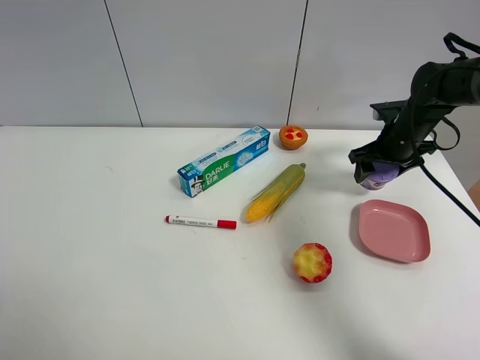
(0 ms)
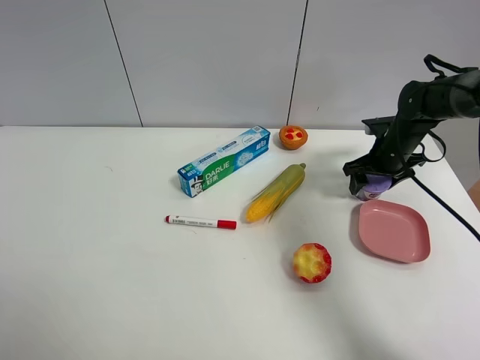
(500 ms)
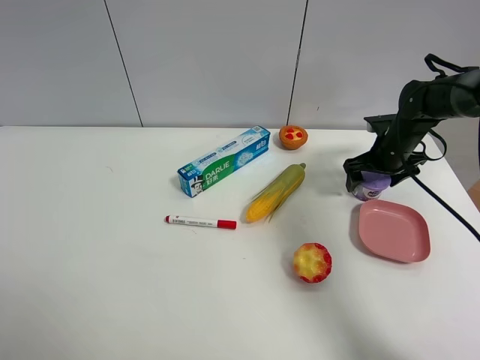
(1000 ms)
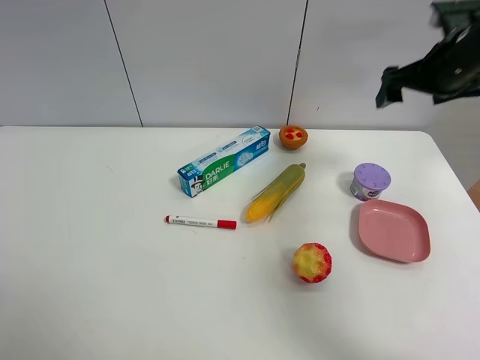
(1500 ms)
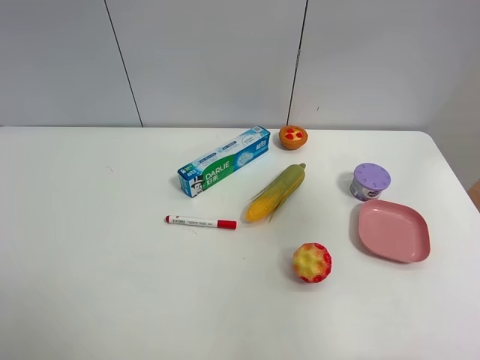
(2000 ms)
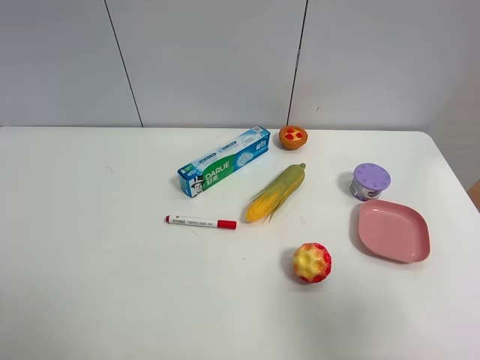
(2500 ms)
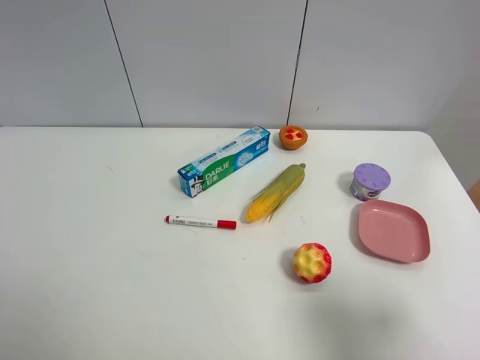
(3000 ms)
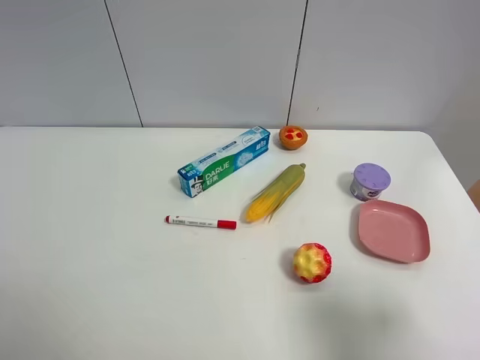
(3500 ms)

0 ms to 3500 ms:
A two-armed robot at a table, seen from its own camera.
Task of the whole recording: the gripper move the object.
0 ms to 2000 ms: The right gripper moves backward and upward, roughly 40 cm, and opens.
2000 ms to 3500 ms: The right gripper moves downward and backward, approximately 20 cm.

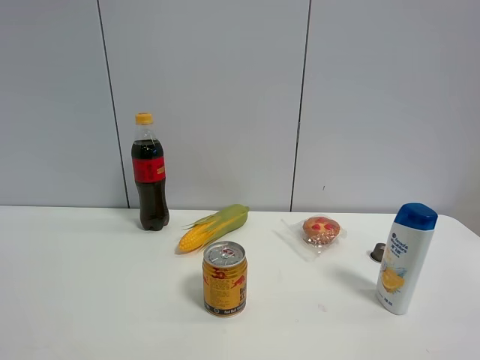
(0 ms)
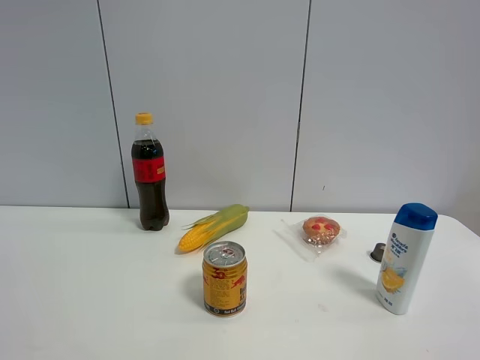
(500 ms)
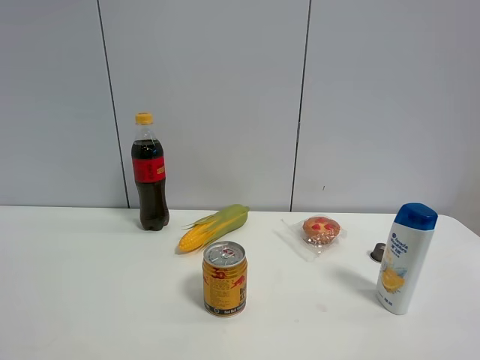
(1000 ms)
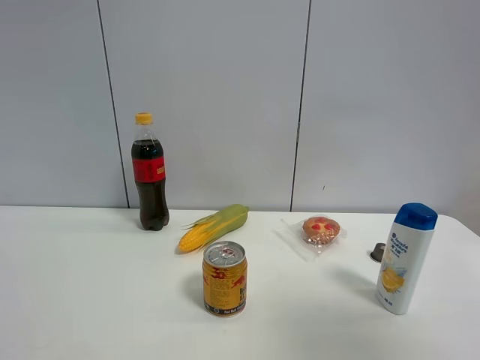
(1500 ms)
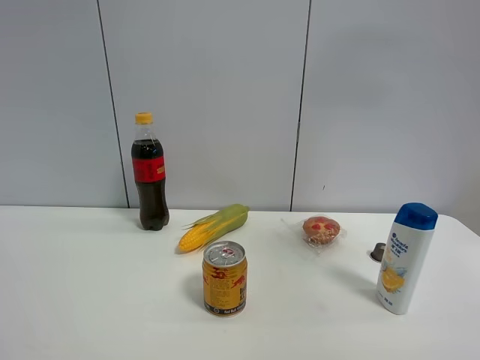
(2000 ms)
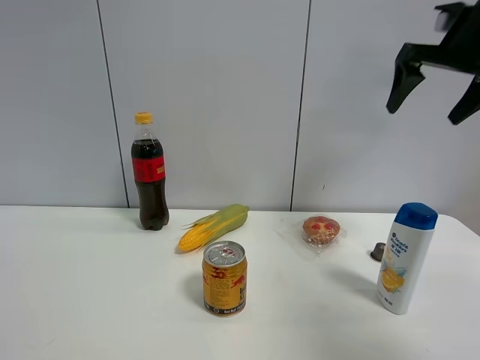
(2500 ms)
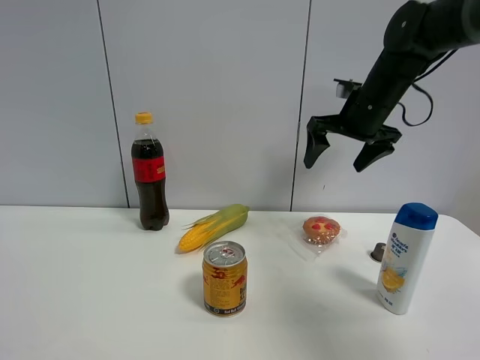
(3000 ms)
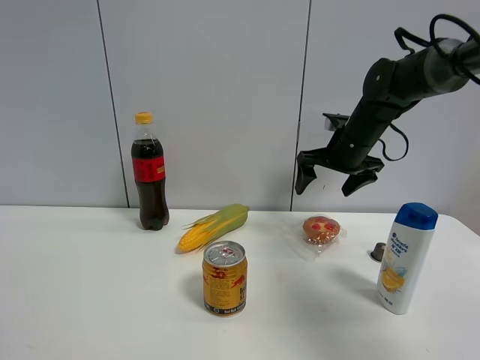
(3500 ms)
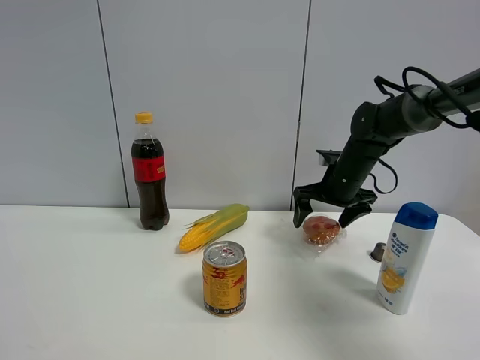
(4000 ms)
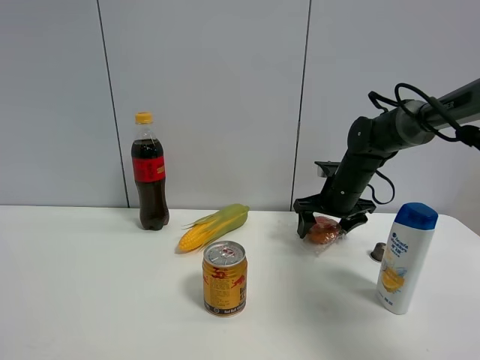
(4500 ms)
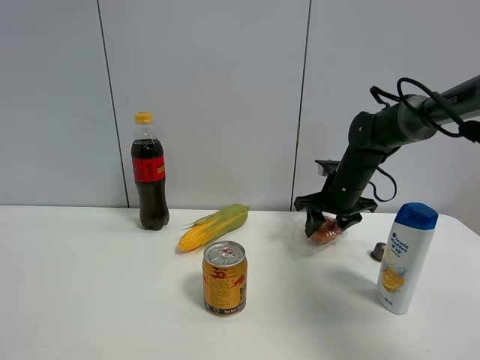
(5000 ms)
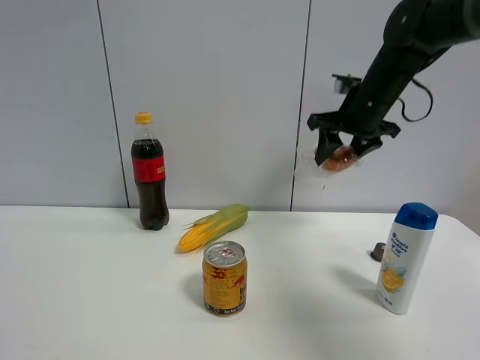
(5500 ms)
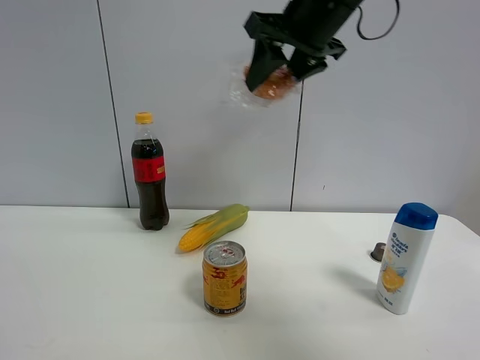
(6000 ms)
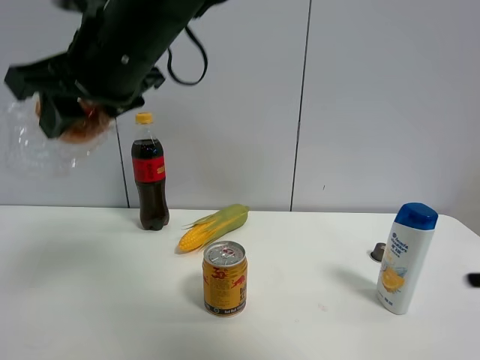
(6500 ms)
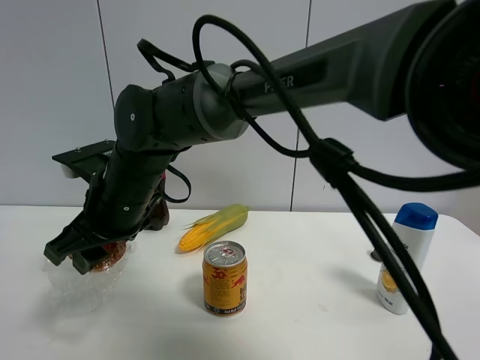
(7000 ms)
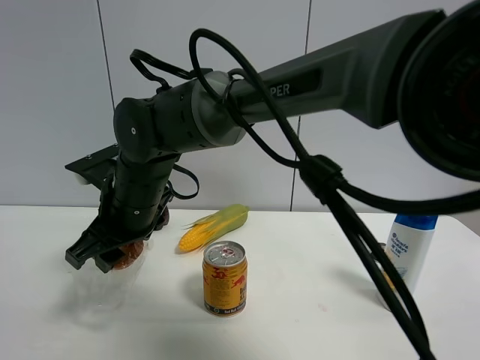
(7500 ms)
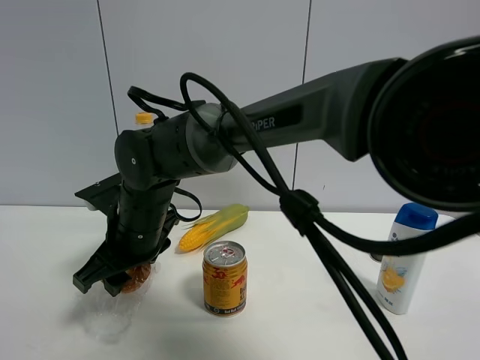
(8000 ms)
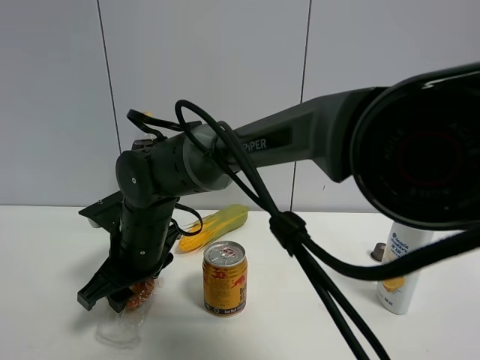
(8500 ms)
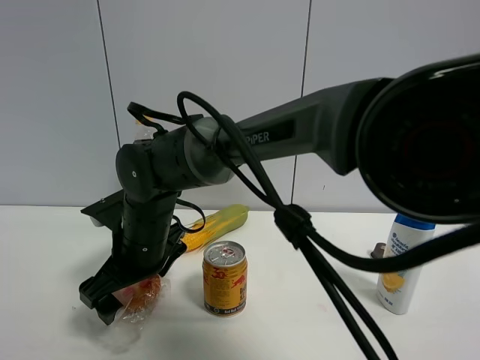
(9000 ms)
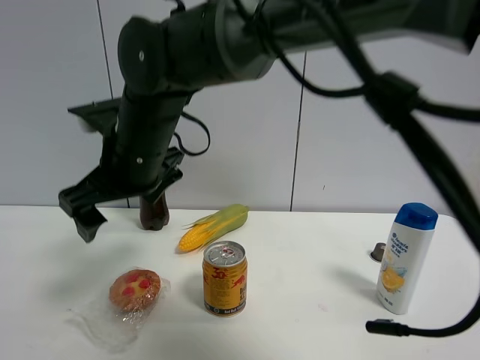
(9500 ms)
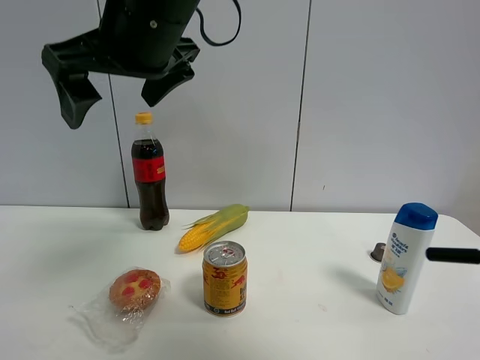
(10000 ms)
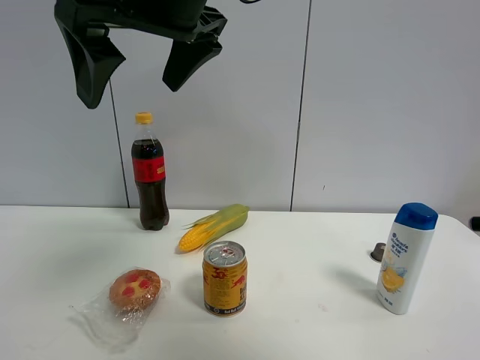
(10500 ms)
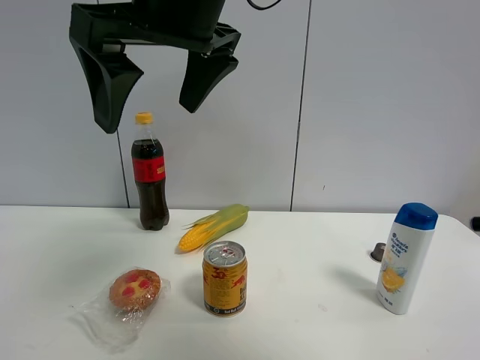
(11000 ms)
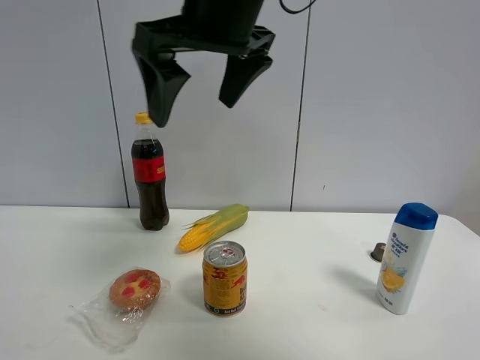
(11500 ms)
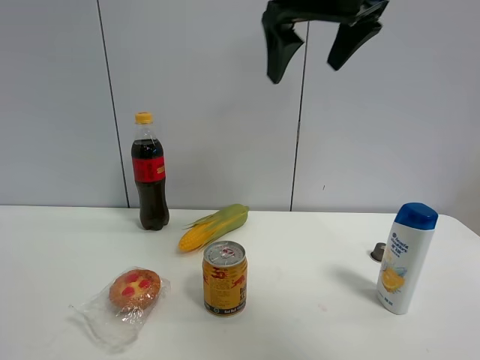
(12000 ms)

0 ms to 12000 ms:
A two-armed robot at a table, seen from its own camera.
Task of the whole recording: the gripper move the object.
Step, 0 ms to 4500 ms: Grasp the egg tart with the right gripper.
Step, 5000 ms to 9000 ms: Place the egg tart on the table with the right gripper.
0 ms to 2000 ms: The right gripper shifts approximately 35 cm forward and upward.
2000 ms to 4000 ms: The right gripper is displaced downward and forward by roughly 40 cm.
4000 ms to 6000 ms: The right gripper shifts about 30 cm upward, backward and to the left, and closes its fingers.
6000 ms to 8000 ms: The right gripper goes roughly 35 cm downward and to the left.
8000 ms to 10000 ms: The right gripper shifts about 25 cm upward, and opens up.
10000 ms to 12000 ms: The right gripper heads to the right, covering about 20 cm.

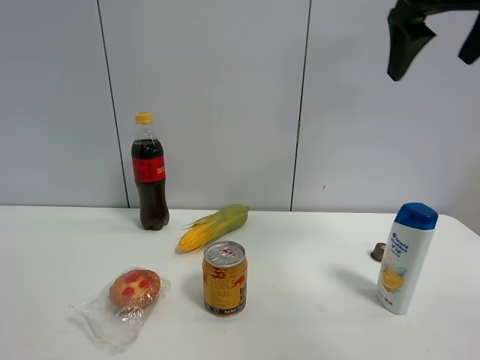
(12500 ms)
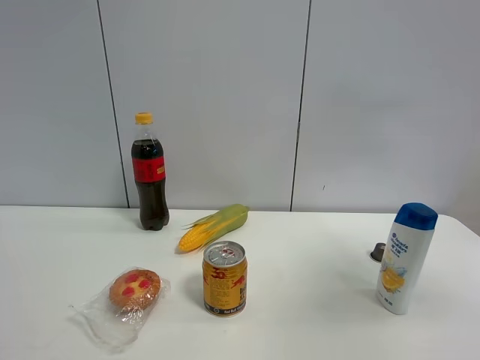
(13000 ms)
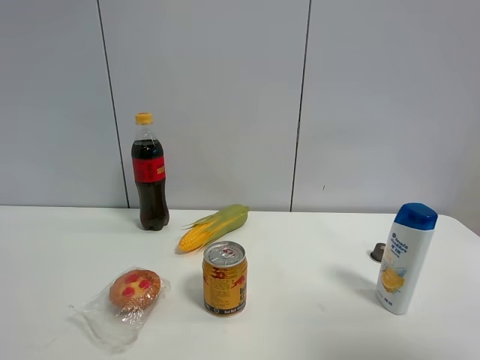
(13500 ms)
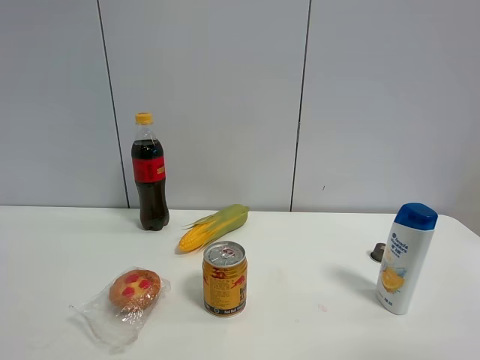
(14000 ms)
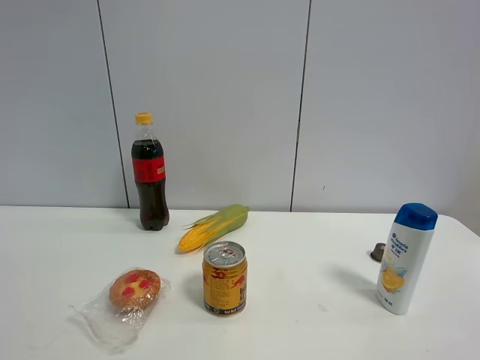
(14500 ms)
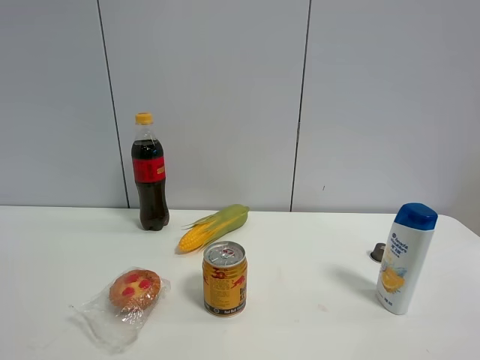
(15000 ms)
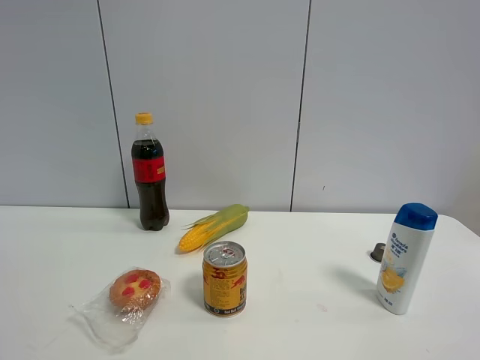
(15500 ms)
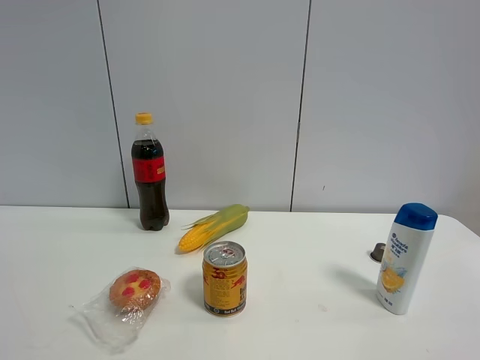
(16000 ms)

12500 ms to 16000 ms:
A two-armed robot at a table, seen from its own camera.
Task of the whole recording: the gripper move the object.
12500 ms to 14500 ms: The right gripper shifts about 35 cm backward and downward.
14500 ms to 16000 ms: The two grippers keep their place.

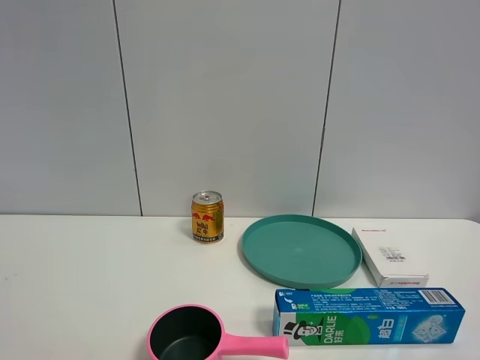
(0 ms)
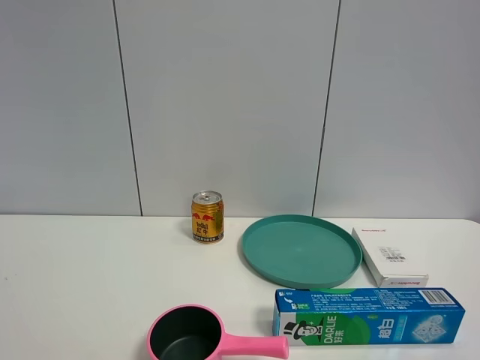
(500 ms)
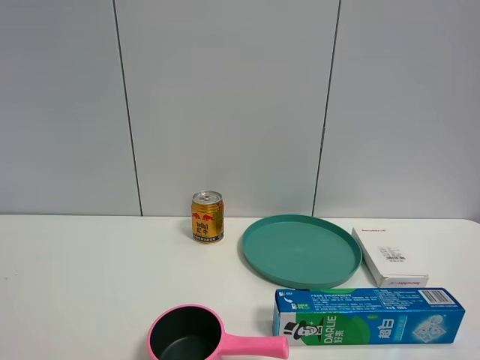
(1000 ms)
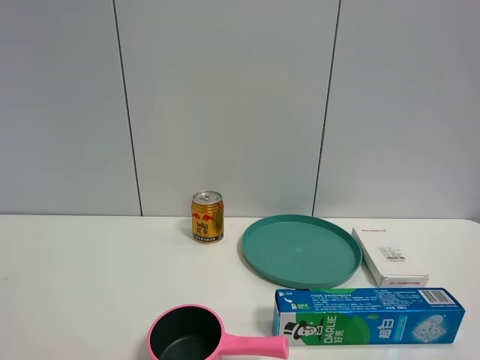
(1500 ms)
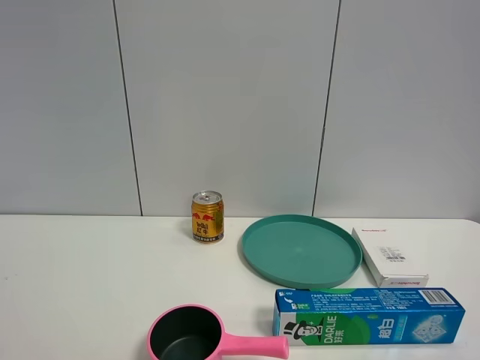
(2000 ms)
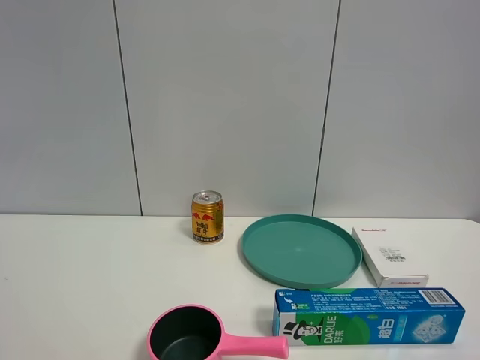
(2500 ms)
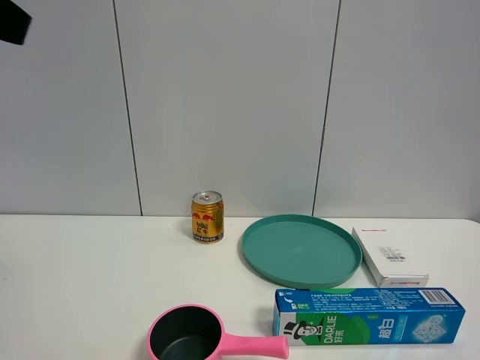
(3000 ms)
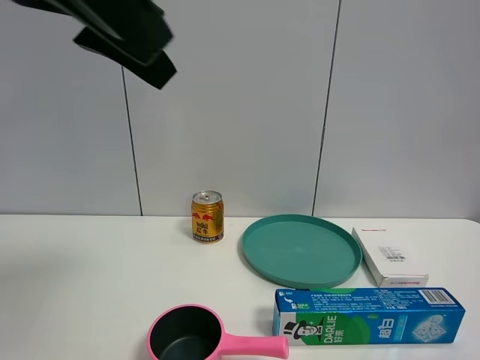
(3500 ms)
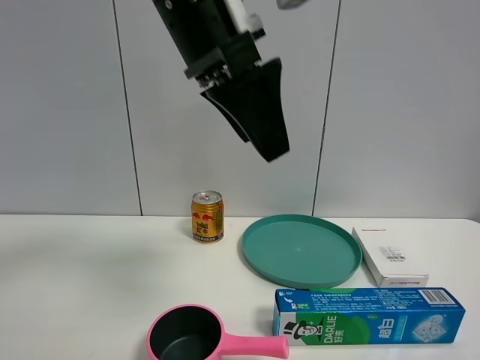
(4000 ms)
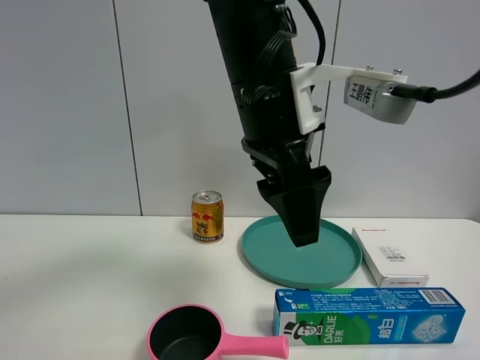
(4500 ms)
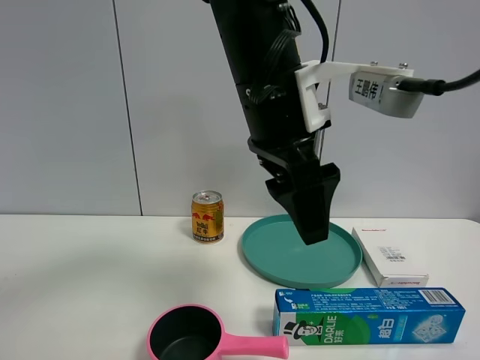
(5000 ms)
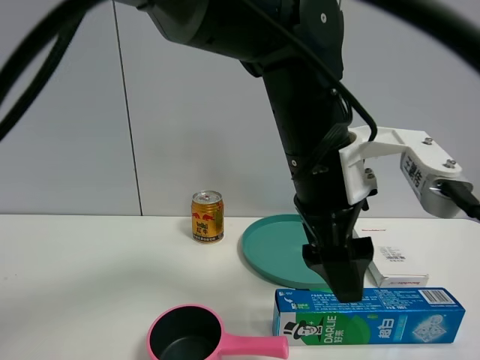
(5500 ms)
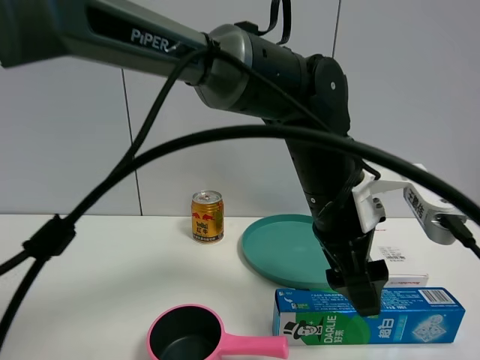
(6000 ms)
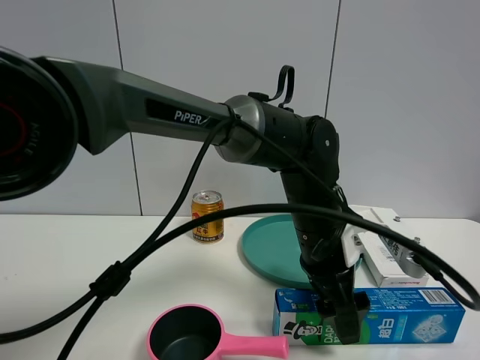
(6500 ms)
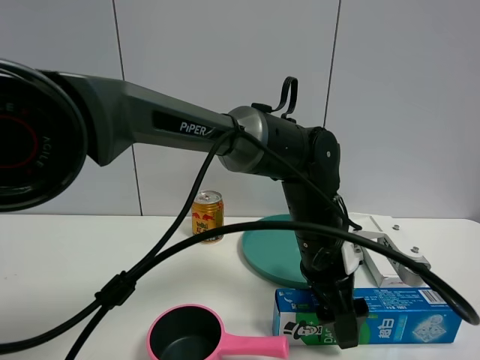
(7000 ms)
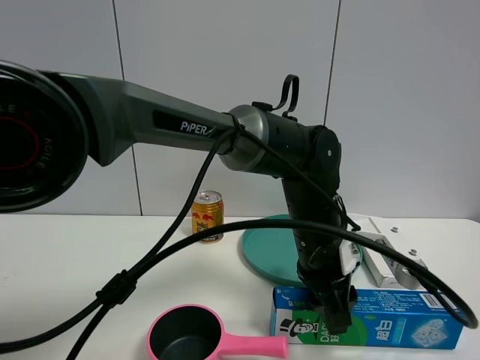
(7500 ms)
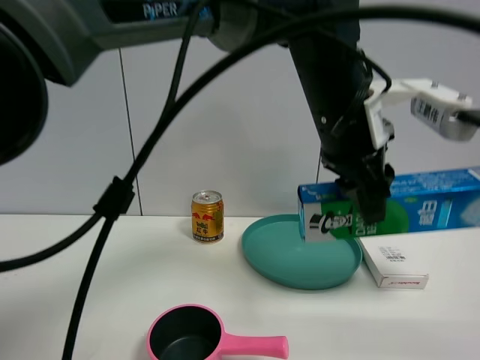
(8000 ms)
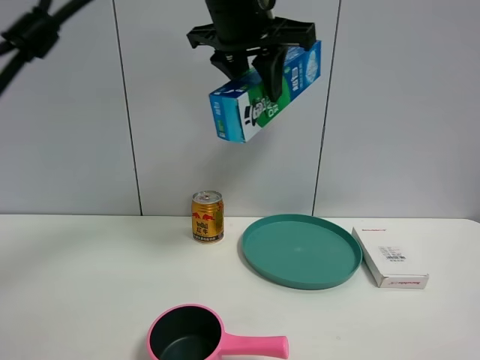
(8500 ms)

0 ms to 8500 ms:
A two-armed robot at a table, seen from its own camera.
Task of the whole recording: the gripper move the object.
Step, 0 ms to 7000 ms: Grasp the toothpaste with the left gripper.
2000 ms to 4000 ms: The left gripper moves forward and to the right, some 40 cm.
4000 ms to 6500 ms: The left gripper heads downward and to the right, covering roughly 25 cm.
6500 ms to 8500 ms: The left gripper shifts some 30 cm upward and to the left, and closes up.
